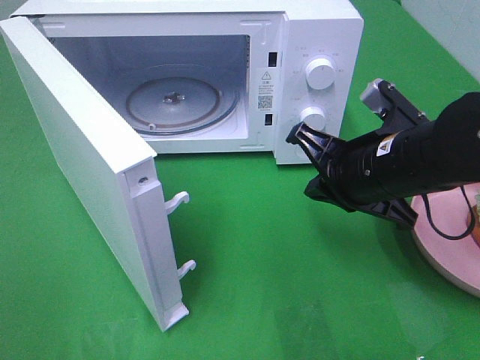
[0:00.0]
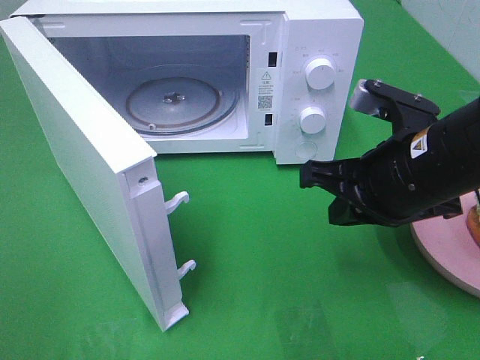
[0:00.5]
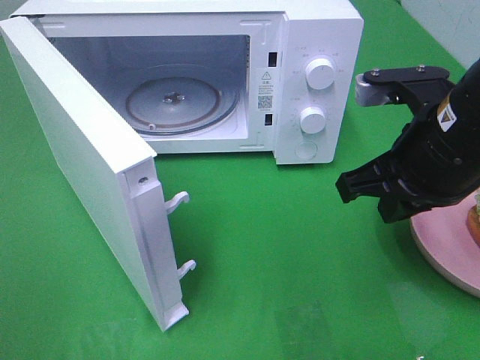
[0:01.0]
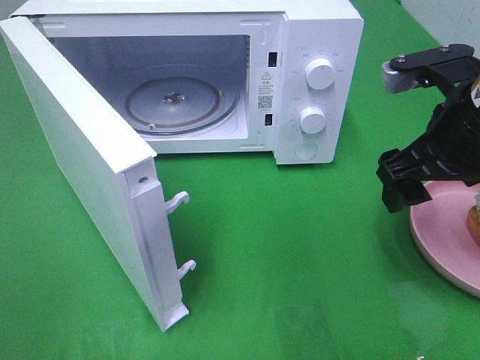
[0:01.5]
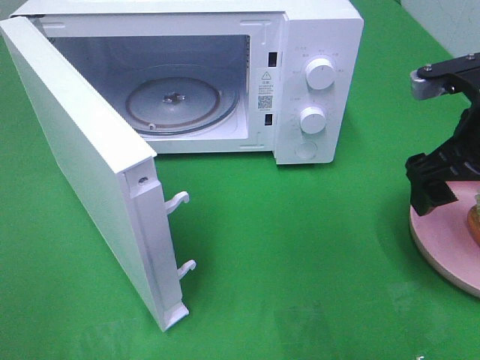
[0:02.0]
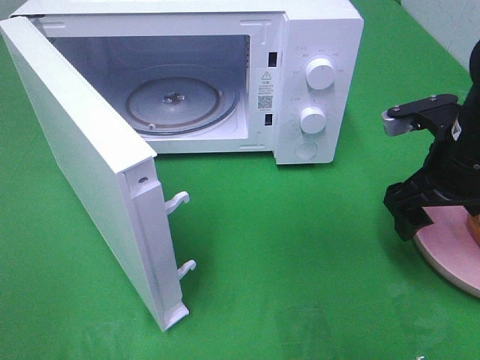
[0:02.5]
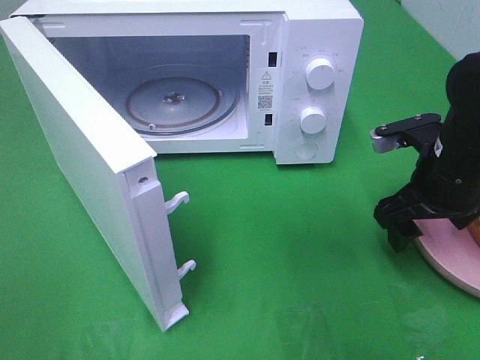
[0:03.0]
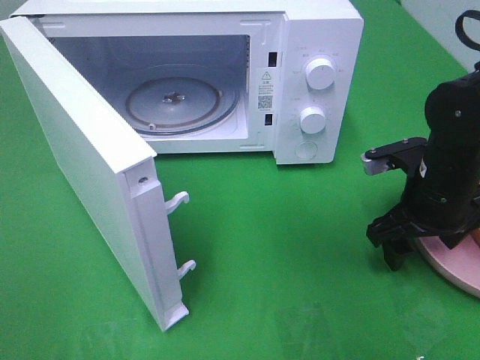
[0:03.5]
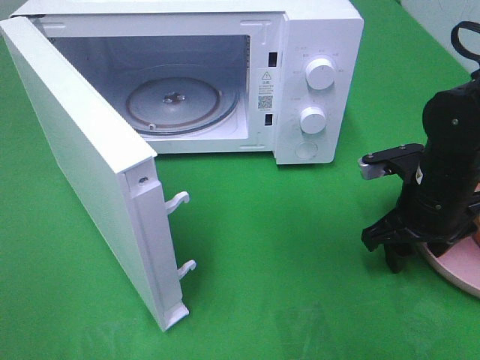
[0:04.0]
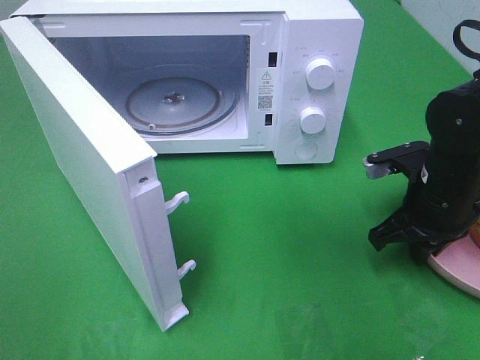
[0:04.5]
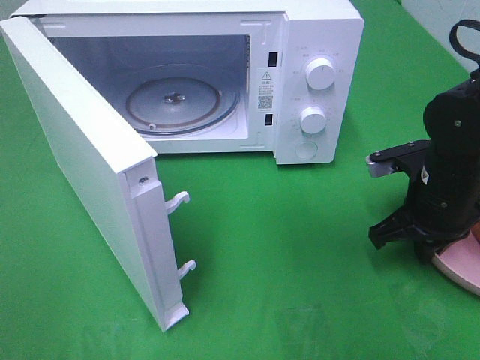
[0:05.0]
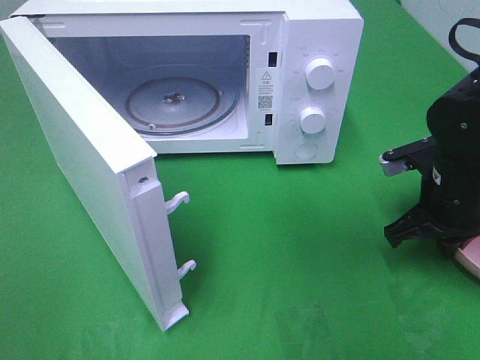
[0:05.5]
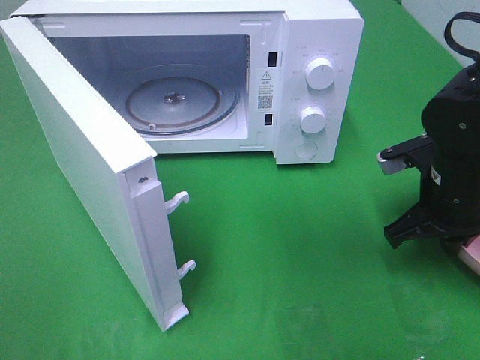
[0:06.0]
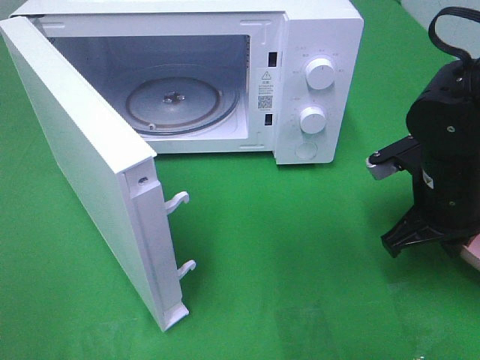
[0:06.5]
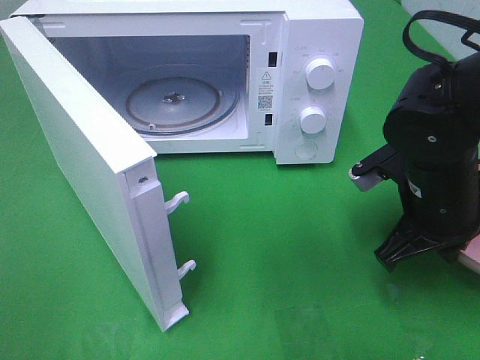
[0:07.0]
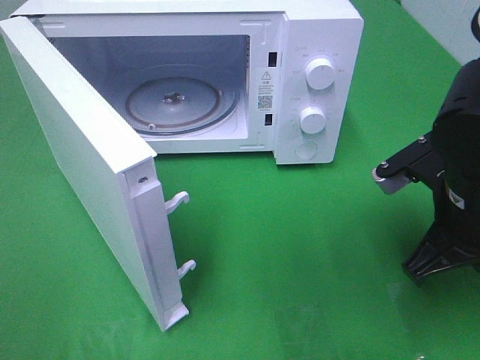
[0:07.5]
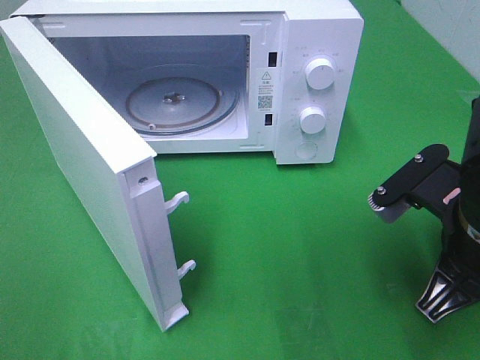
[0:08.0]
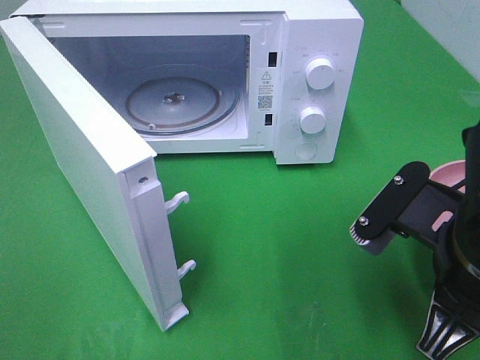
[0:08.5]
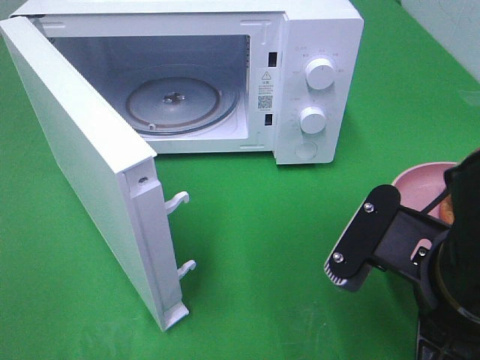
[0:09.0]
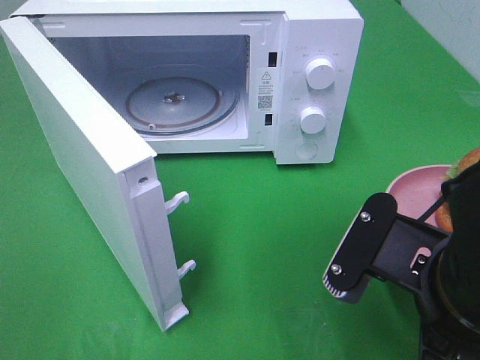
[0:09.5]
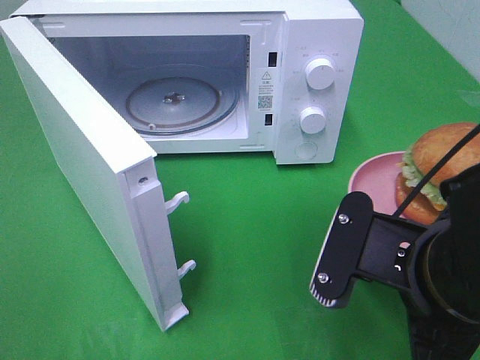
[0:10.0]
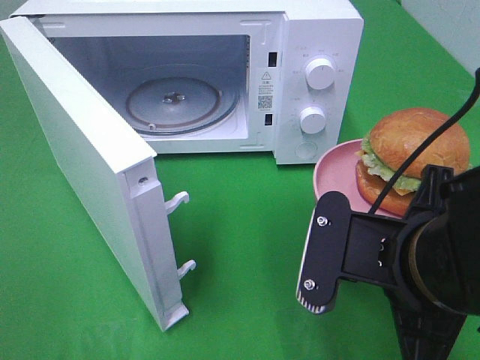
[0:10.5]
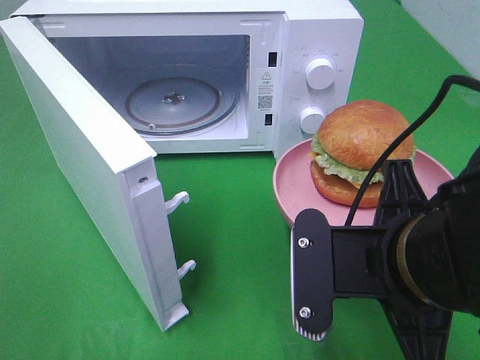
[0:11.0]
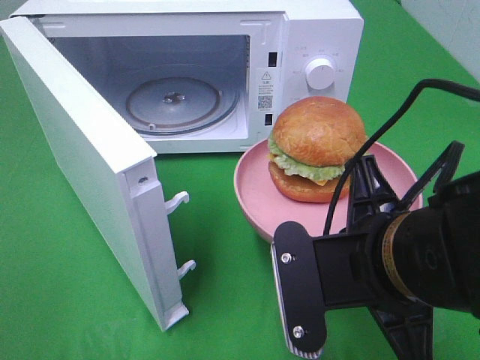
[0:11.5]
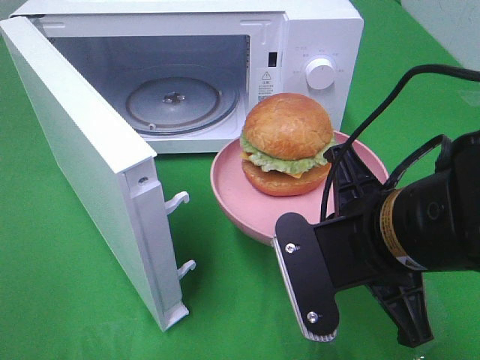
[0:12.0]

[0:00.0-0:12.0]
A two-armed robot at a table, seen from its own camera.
Task of the whole recording: Heat the burger.
Step, 0.0 to 5.0 s: Right hand: grab the plate with the hamburger.
0.0 to 2.0 s: The right gripper heads to the right and upward, covering some 10 cm, and opens up.
2.0 to 4.0 s: The right gripper shifts roughly 10 cm downward.
4.0 to 6.0 s: The right gripper closes.
6.0 to 8.0 s: The right gripper shifts some 10 cm backward and upward.
8.0 to 10.0 s: The right gripper goes some 5 cm to the left and backward.

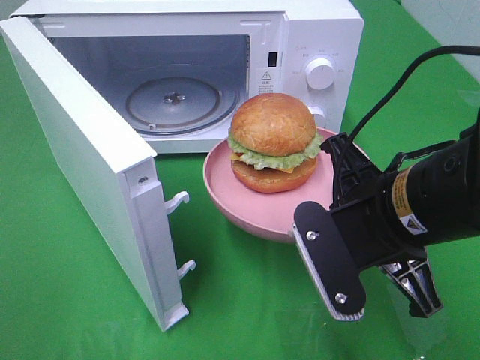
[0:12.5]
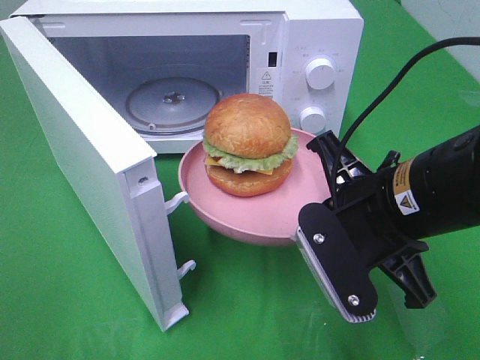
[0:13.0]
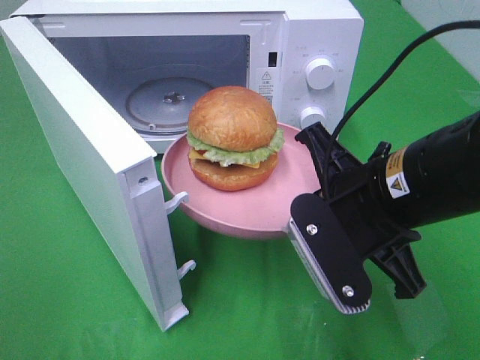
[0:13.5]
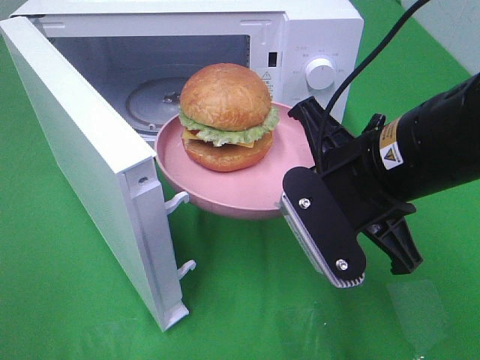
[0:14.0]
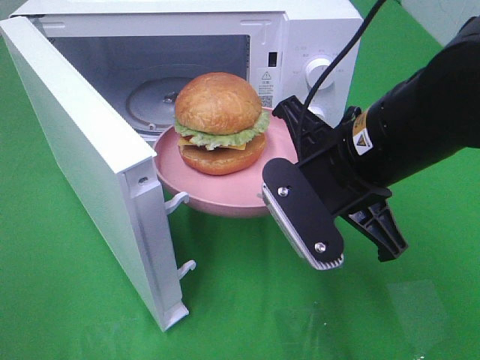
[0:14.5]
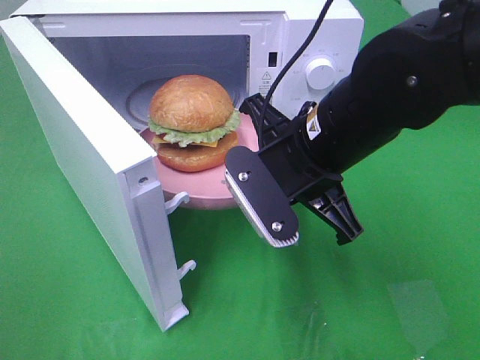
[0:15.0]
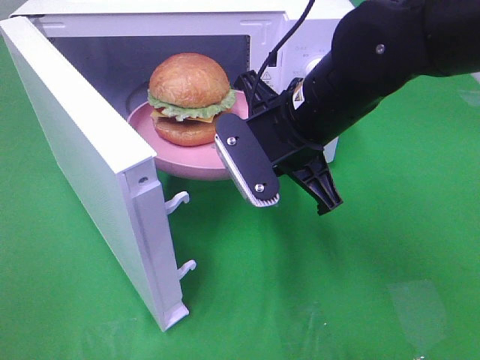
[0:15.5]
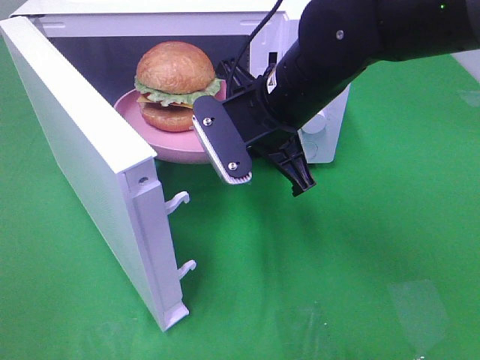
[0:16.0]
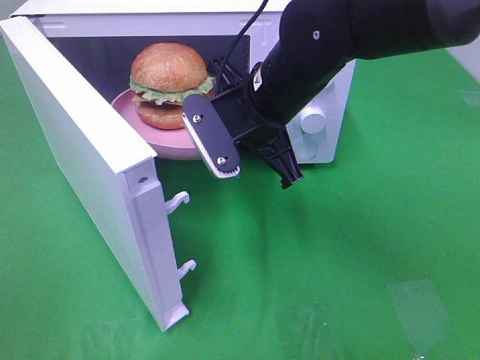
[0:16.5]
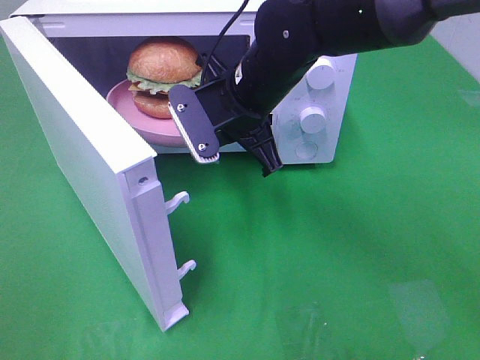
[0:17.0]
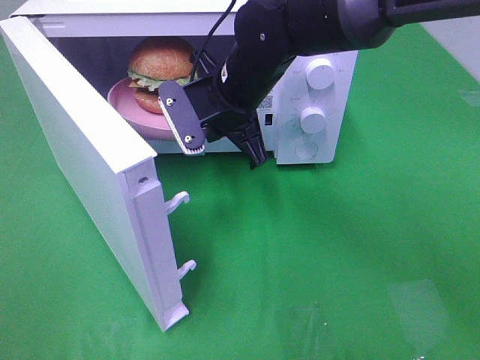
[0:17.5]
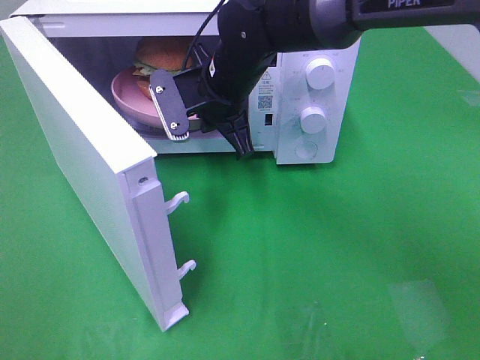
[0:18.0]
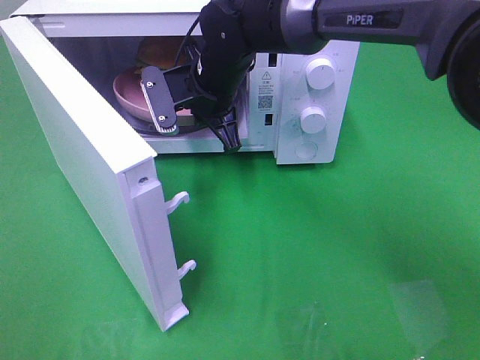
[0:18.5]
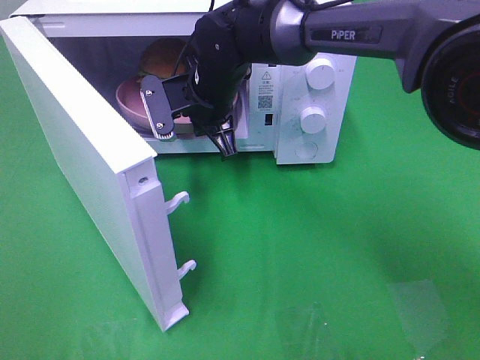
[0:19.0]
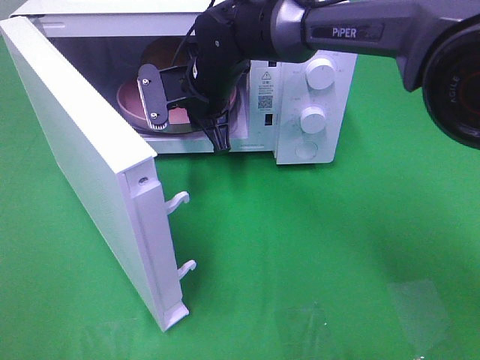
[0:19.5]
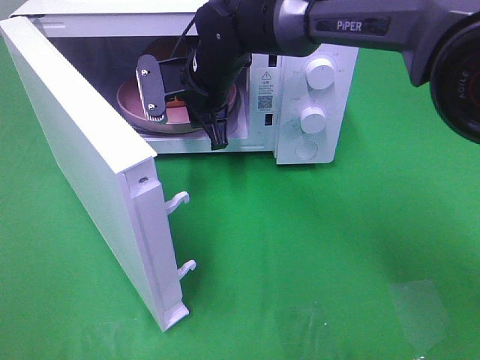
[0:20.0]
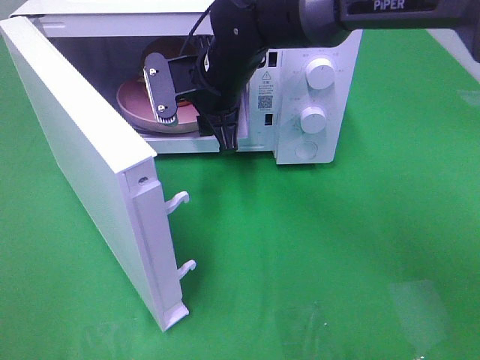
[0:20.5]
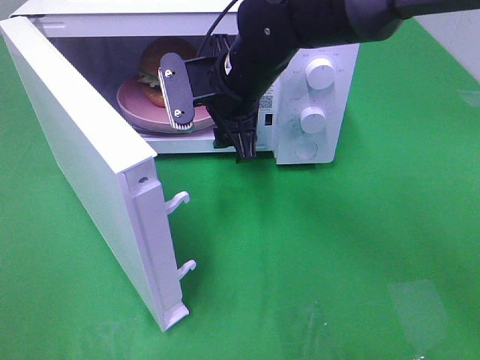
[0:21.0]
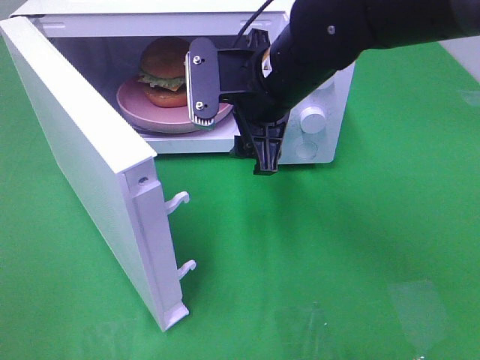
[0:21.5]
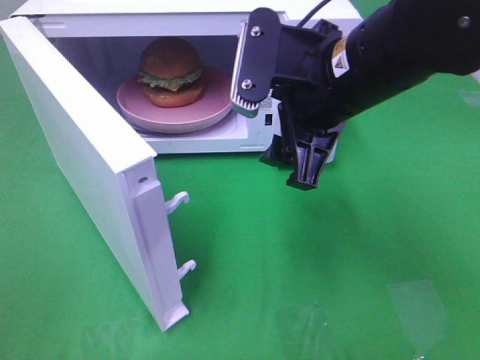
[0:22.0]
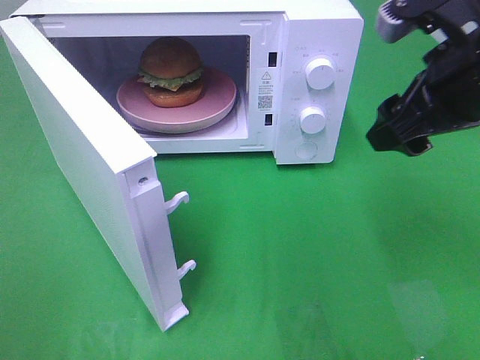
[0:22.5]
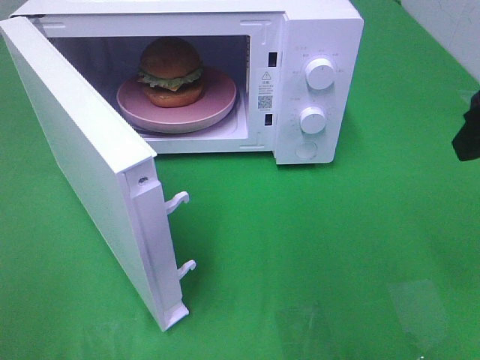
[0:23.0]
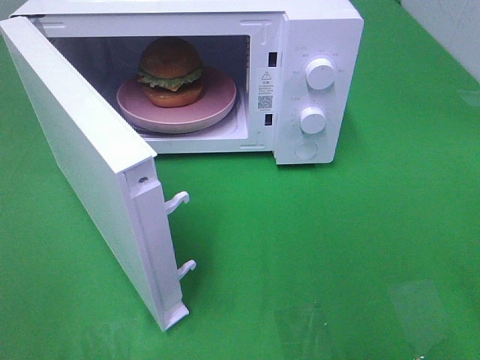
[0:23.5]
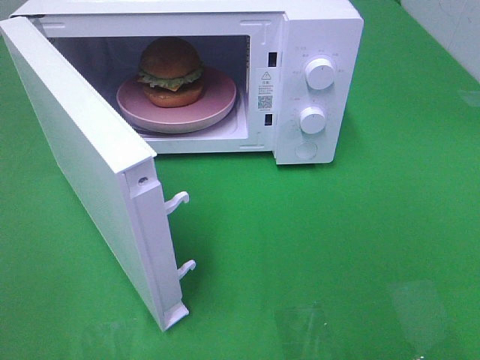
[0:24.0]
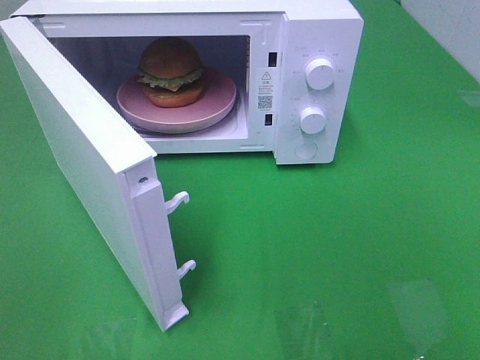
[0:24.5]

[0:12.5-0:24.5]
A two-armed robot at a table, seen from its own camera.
Task of the whole recording: Heat the burger.
Step, 12.5 to 19.5 s: Right hand: place the plate in the microwave.
12.5 to 14.5 s: The right gripper ends up about 5 cm from where it was.
14.5 to 16.5 s: The right gripper moves forward and to the left, some 10 cm.
16.5 to 18.5 s: The right gripper is displaced forward and to the left by approximately 10 cm.
18.5 to 20.5 s: The right gripper opens its fingers.
20.5 to 22.5 s: The right gripper moves to the right, backward and upward, about 25 cm.
22.5 to 24.5 s: The right gripper moves backward and to the right, some 25 cm.

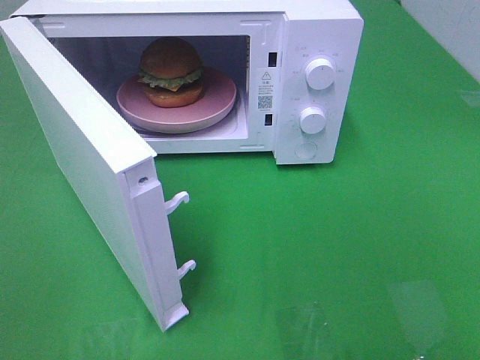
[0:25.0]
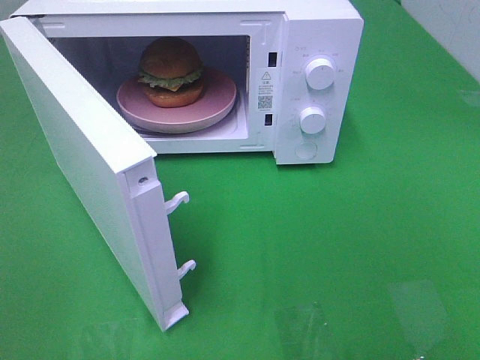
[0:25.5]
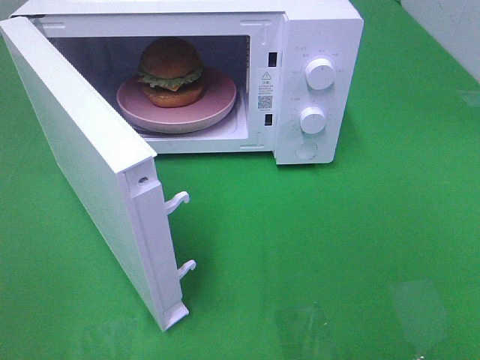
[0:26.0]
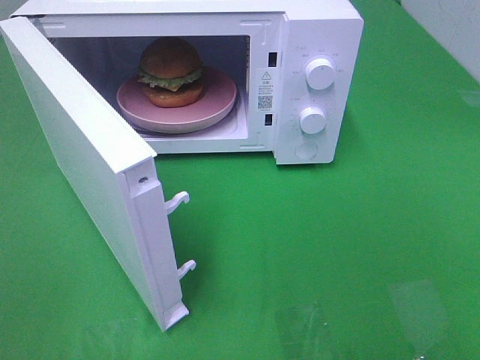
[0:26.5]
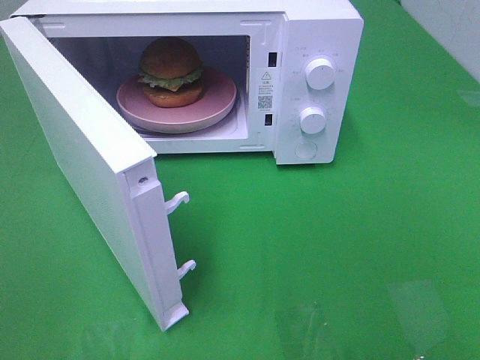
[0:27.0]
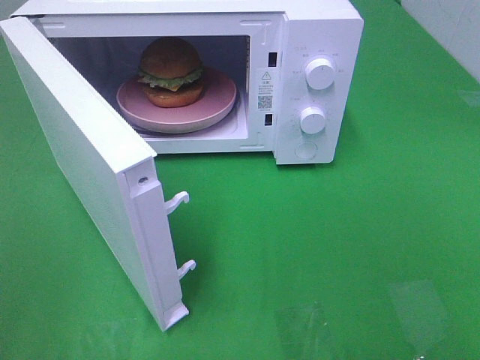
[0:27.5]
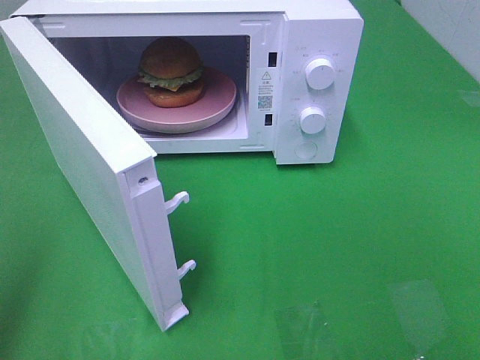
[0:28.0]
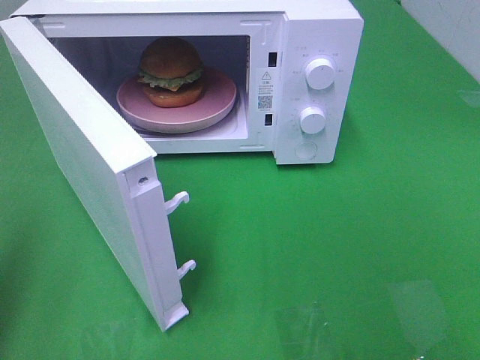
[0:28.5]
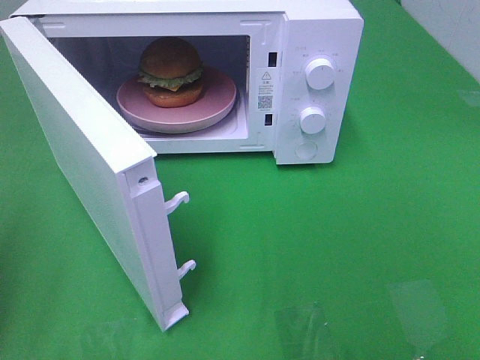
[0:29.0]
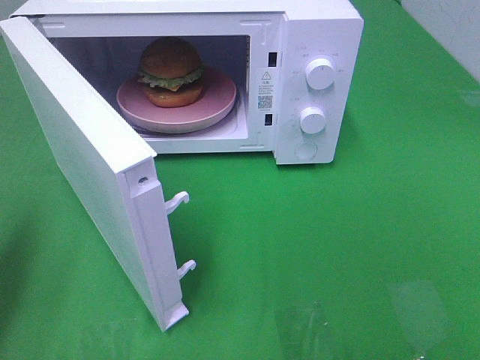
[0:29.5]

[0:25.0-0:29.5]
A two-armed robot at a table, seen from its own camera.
Task of the whole recording: Heat the burger.
25.0 to 27.0 s: Both grippers stay put.
27.0 to 29.5 s: The left gripper heads forward, covering about 20 cm, and closes its fingers.
